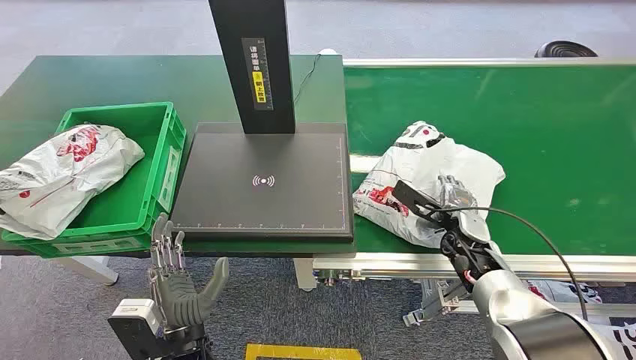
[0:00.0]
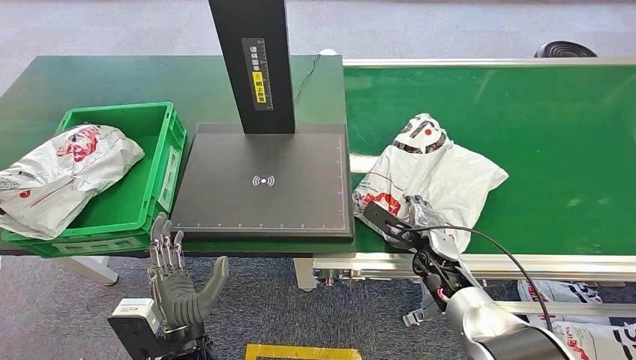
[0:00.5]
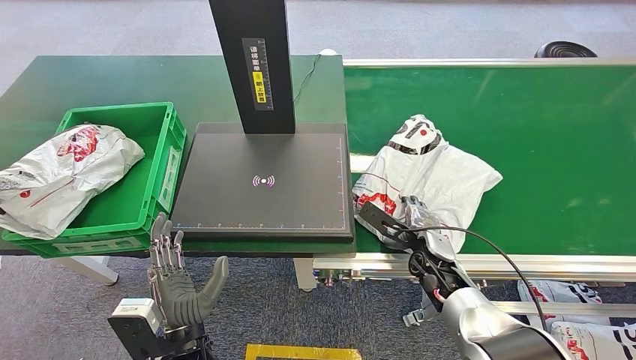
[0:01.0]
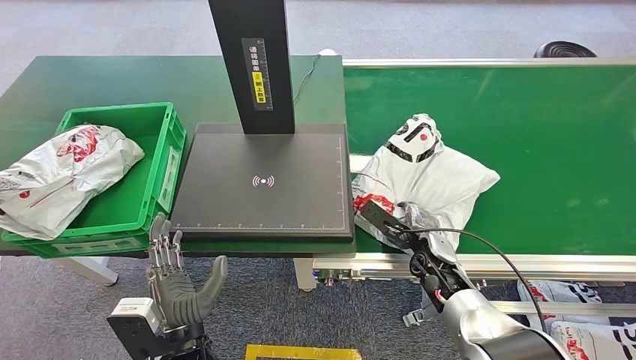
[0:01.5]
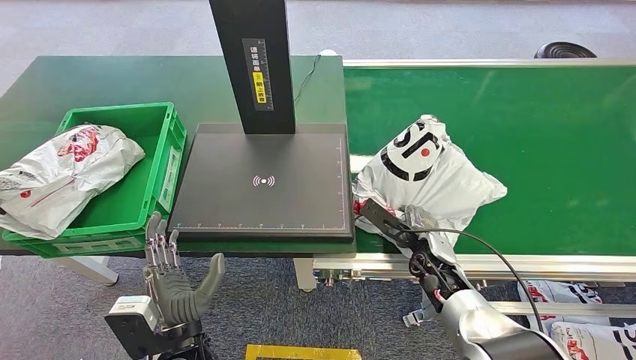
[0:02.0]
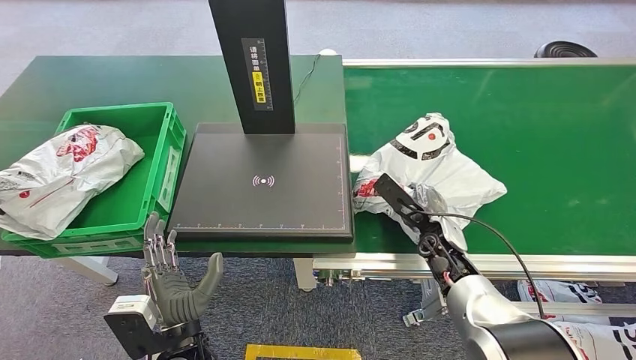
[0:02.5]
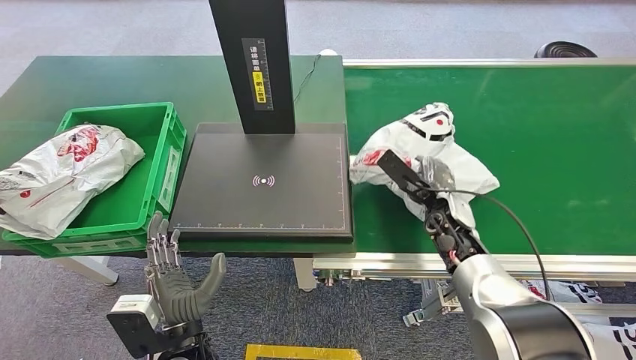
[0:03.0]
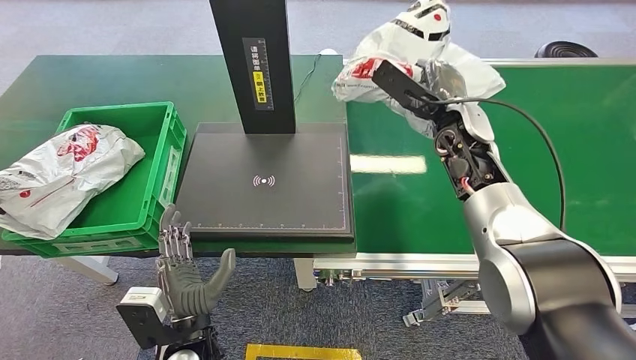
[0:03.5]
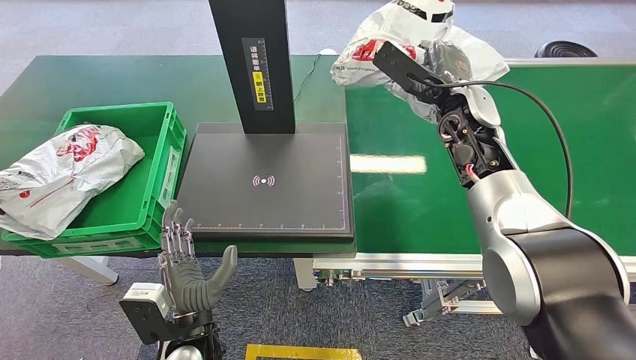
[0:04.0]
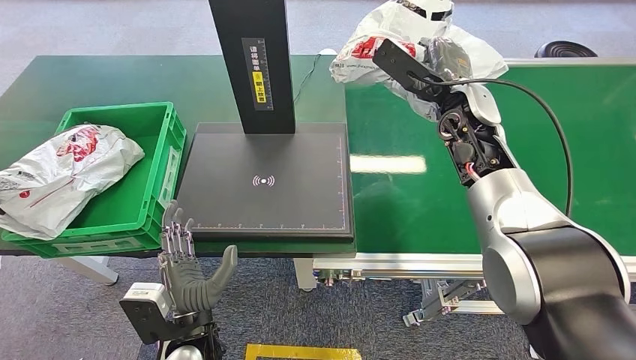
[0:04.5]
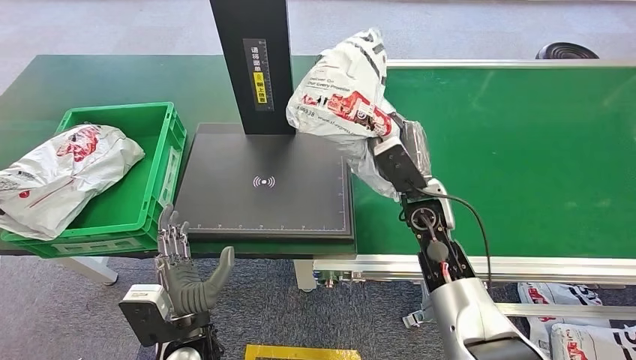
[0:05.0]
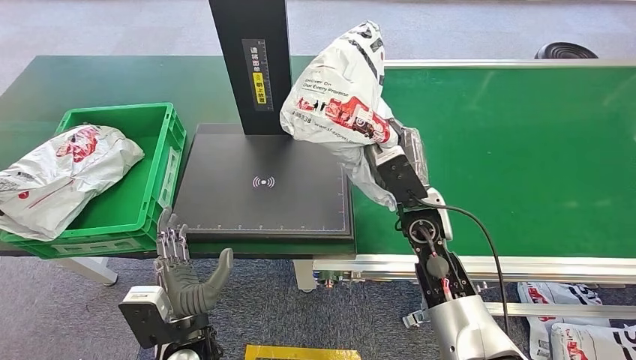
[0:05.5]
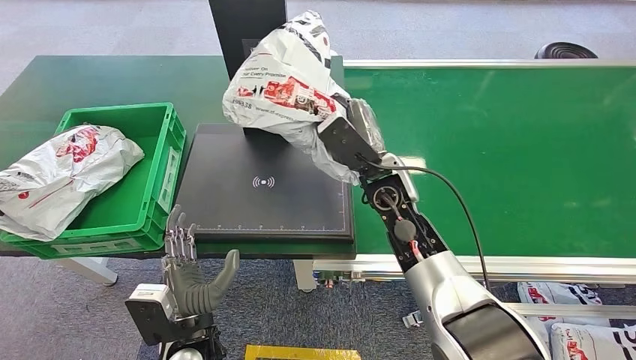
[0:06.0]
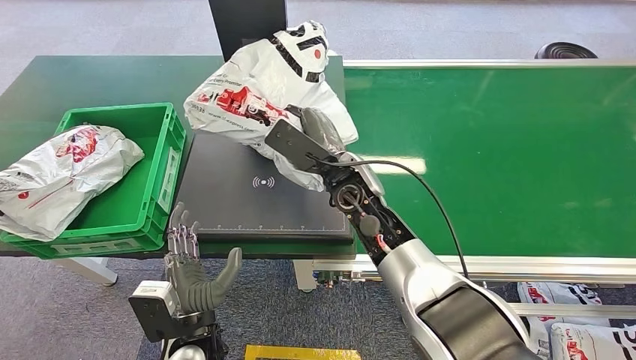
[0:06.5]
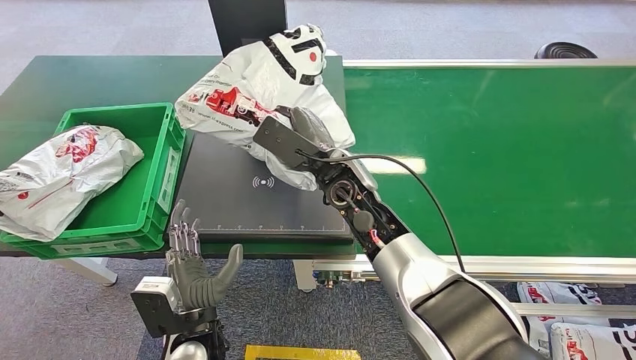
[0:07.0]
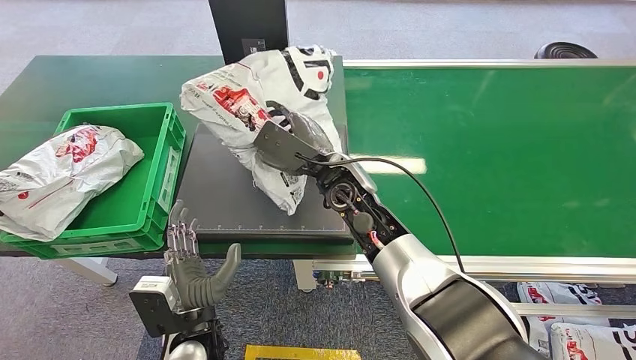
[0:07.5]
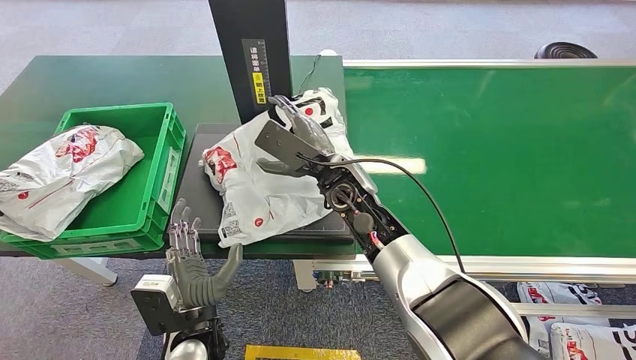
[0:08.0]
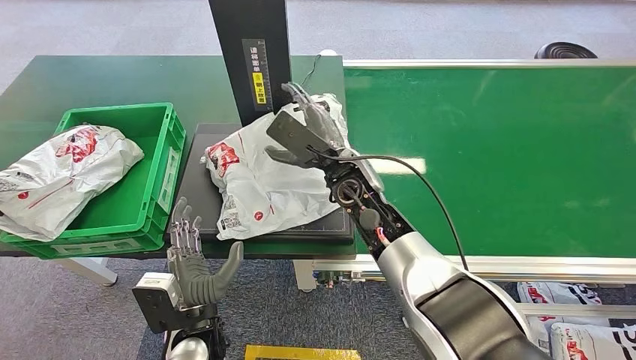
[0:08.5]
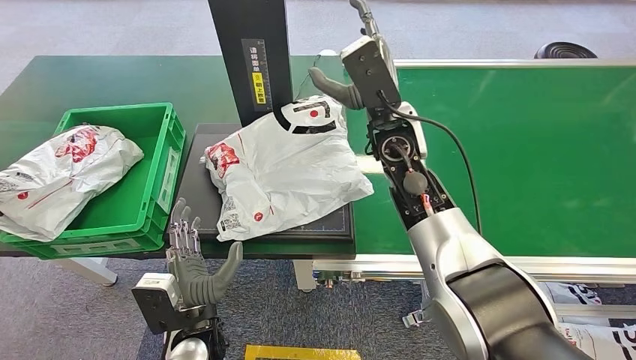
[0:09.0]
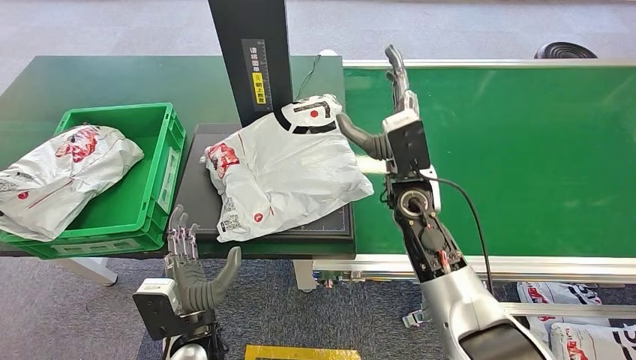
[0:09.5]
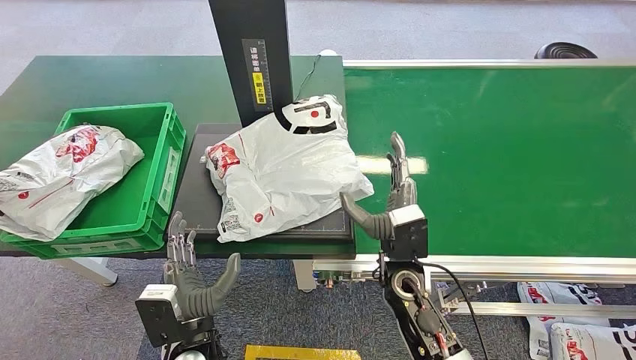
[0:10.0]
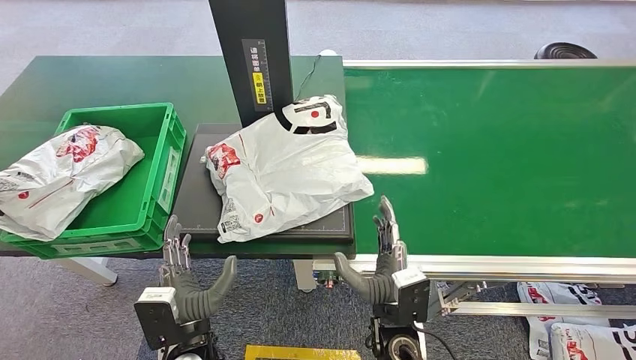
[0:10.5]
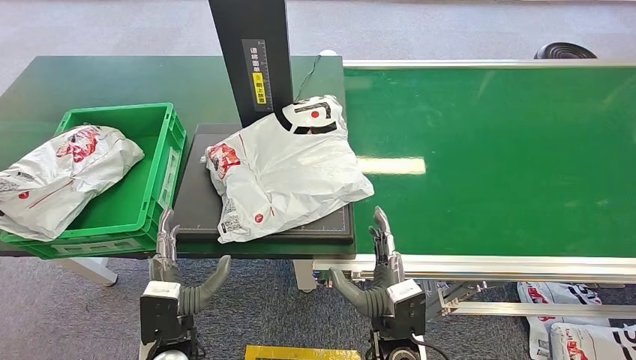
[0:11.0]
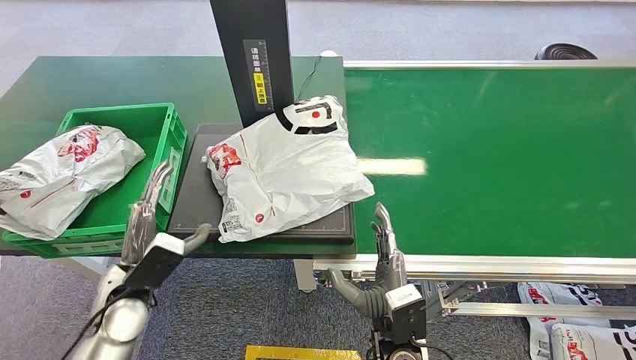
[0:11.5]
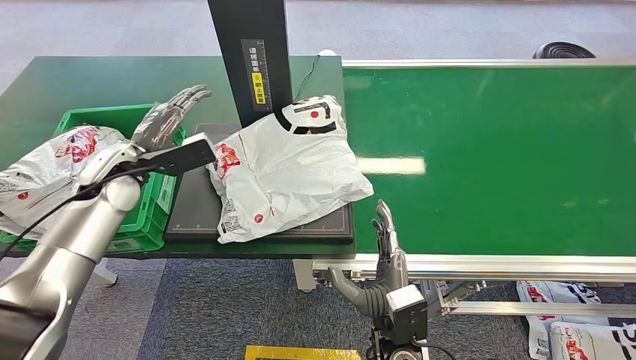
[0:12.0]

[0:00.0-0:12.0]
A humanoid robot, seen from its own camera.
Step, 0:00.0 to 0:03.5: Pick up the package from the conveyor belt.
Step, 0:04.0 to 0:09.5: Place the package onto the inbound machine.
0:08.0 to 0:10.0: The right hand goes some 15 cm backward, downward and to the right.
0:10.0 to 0:12.0: The left hand moves forward, to the left and upward, roughly 35 cm. The right hand is displaced backward by roughly 10 cm.

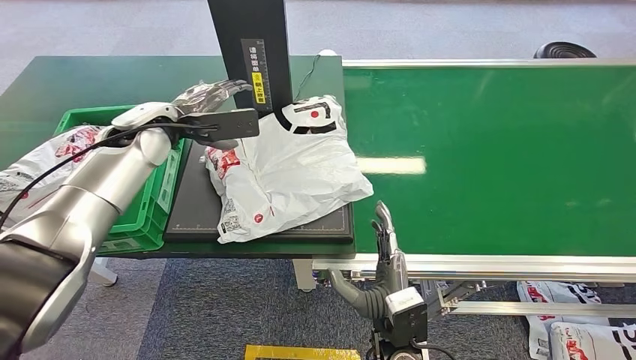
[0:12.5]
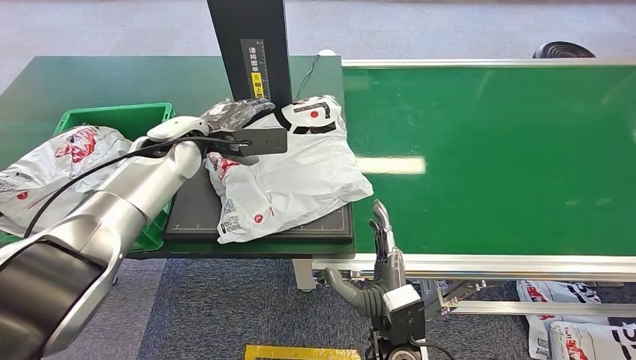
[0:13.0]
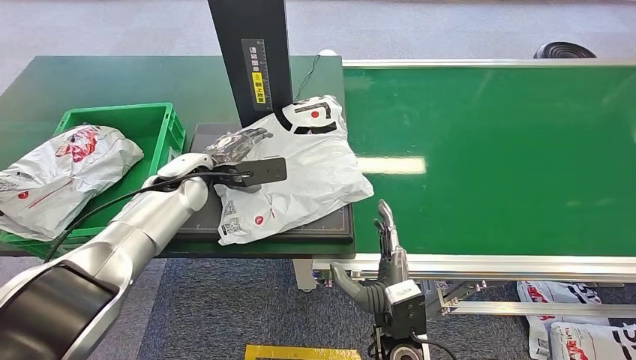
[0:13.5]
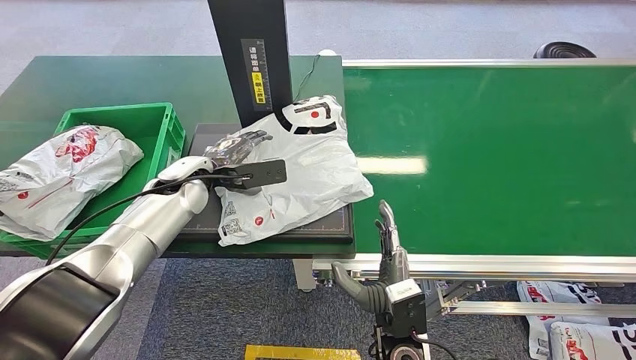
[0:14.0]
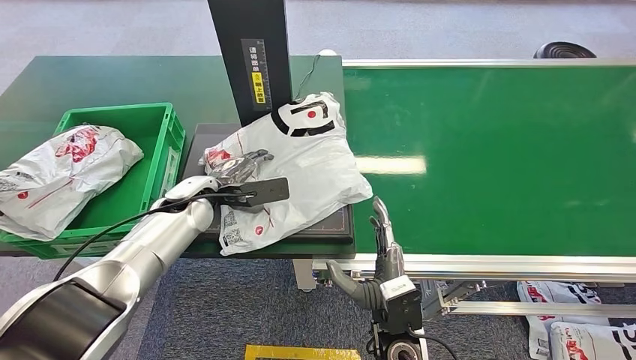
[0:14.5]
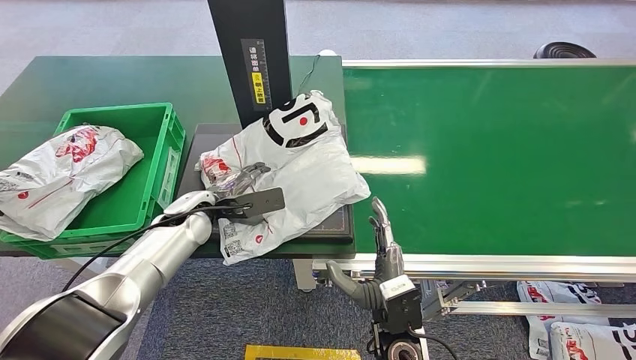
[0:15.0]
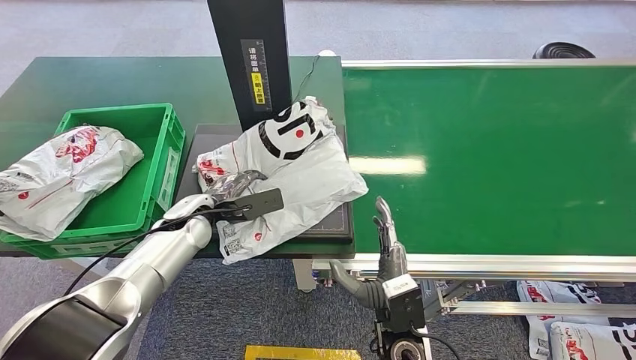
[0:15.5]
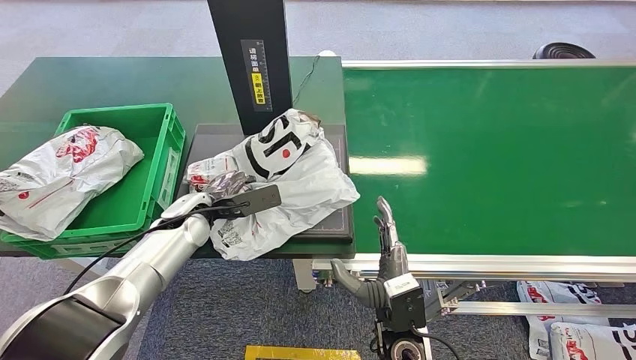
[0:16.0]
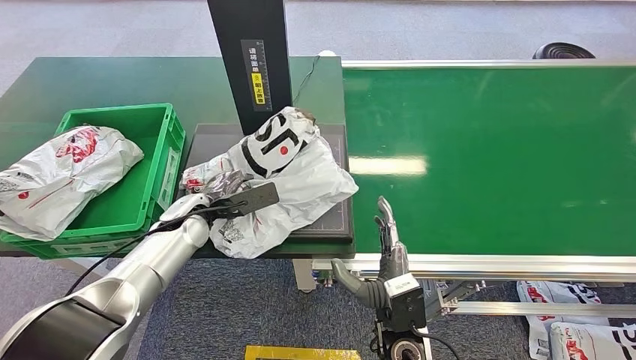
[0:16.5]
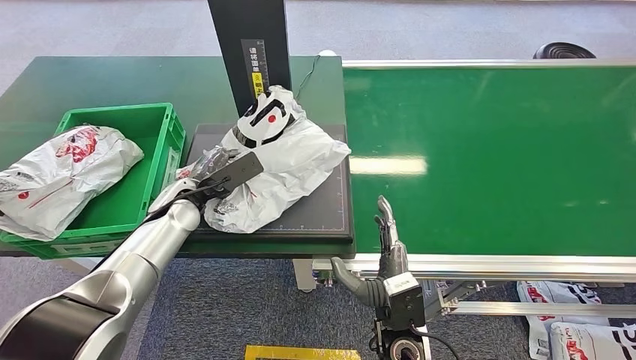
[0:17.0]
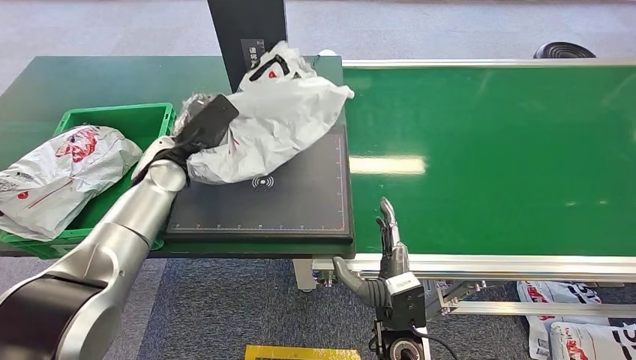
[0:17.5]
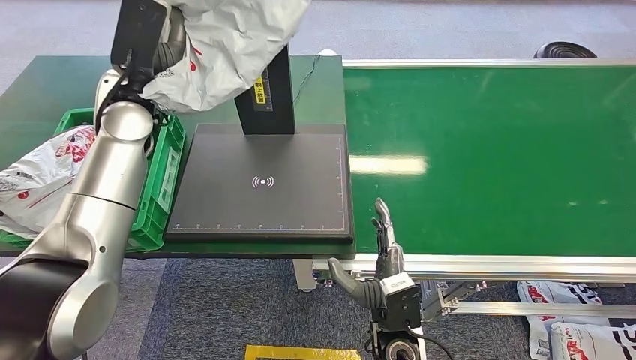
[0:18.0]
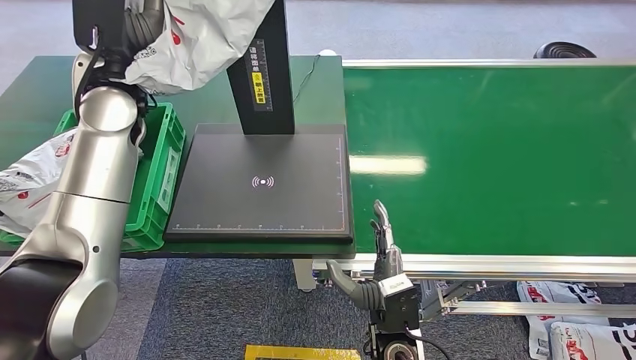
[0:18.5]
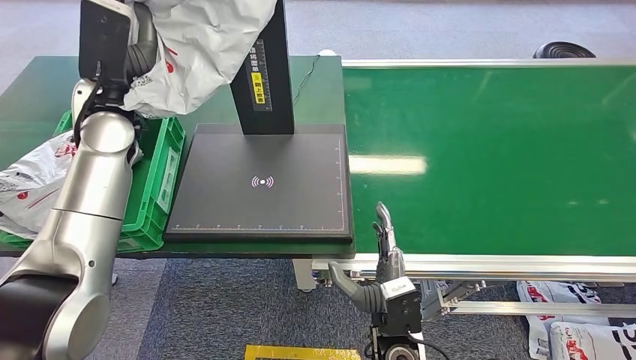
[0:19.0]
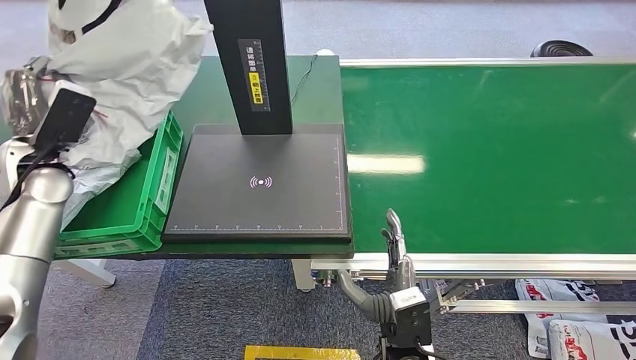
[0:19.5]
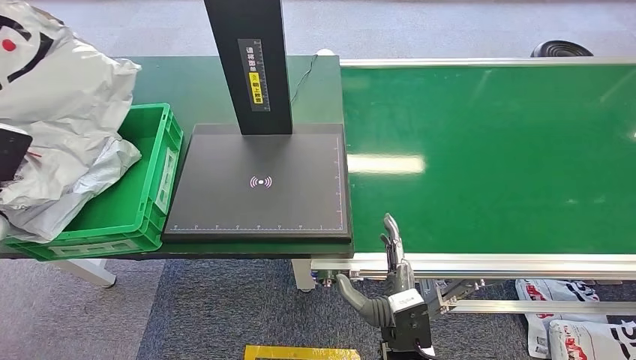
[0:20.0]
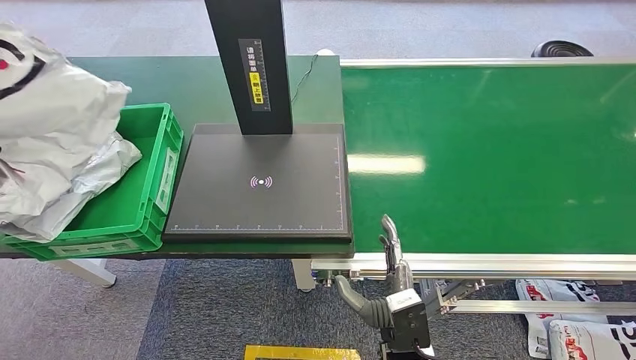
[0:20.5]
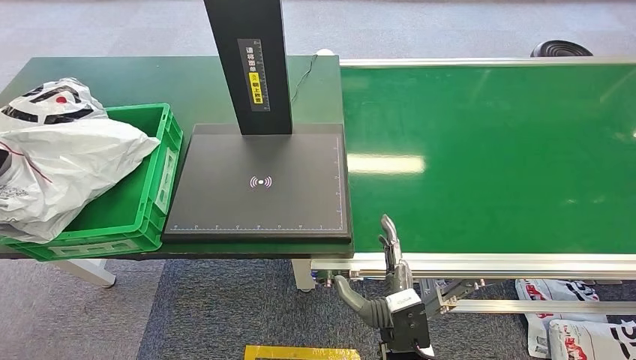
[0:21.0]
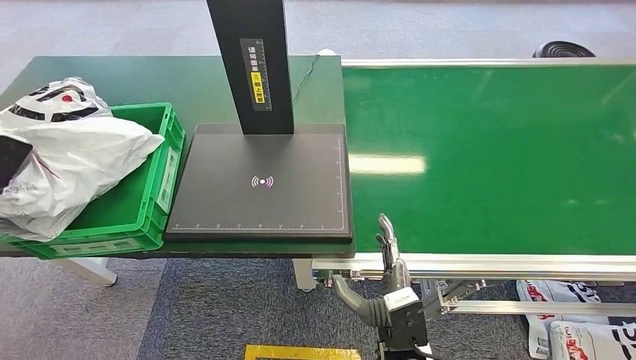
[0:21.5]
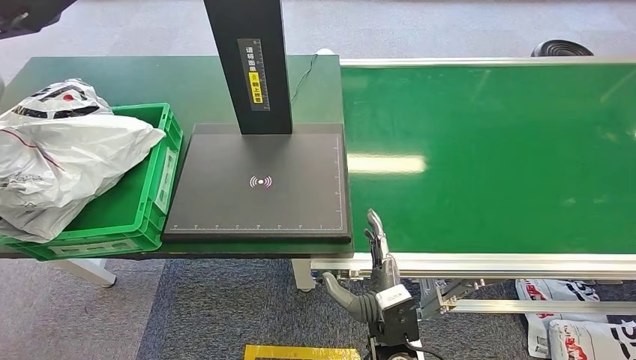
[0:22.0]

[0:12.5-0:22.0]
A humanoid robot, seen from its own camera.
Step, 0:12.5 to 0:19.0: Pick up the package from the inbound machine.
Step, 0:19.5 to 0:22.0: Place the package into the parcel locker.
0:12.5 to 0:14.5: The left hand moves downward, approximately 15 cm.
0:14.5 to 0:16.5: The hands make only small movements.
0:20.0 to 0:22.0: The left hand travels upward, to the right and forward by roughly 25 cm.
